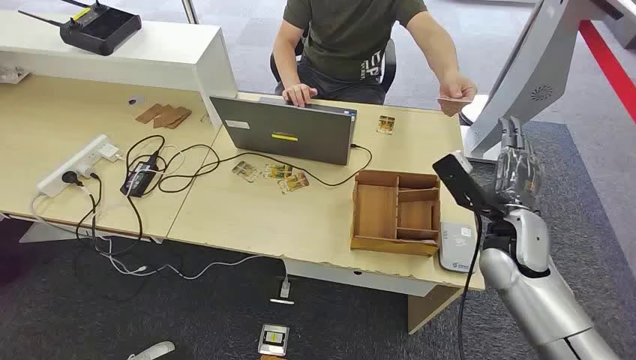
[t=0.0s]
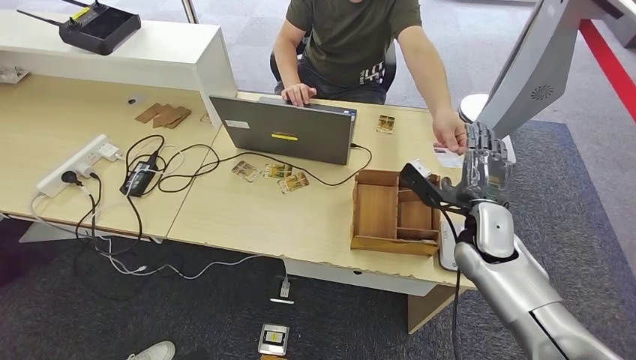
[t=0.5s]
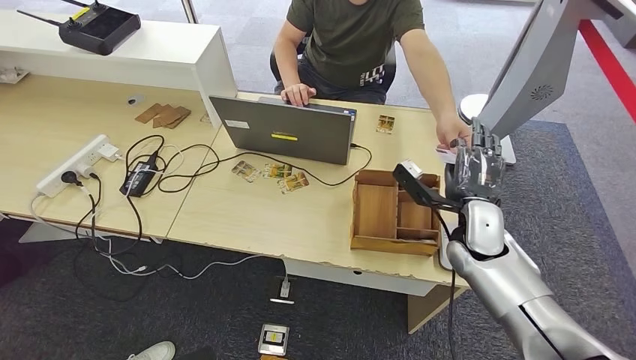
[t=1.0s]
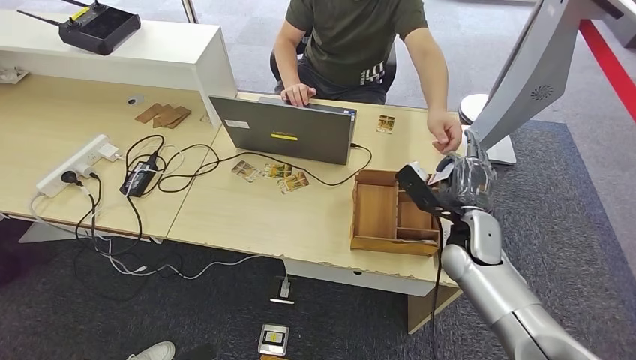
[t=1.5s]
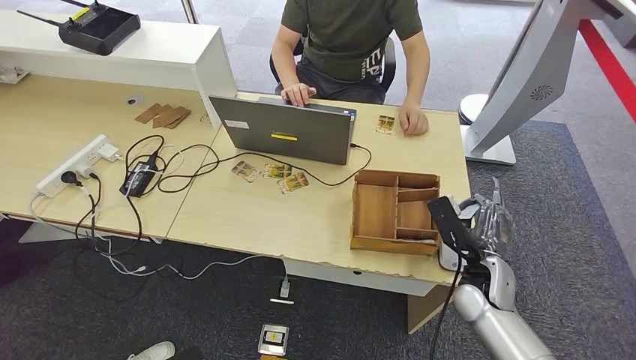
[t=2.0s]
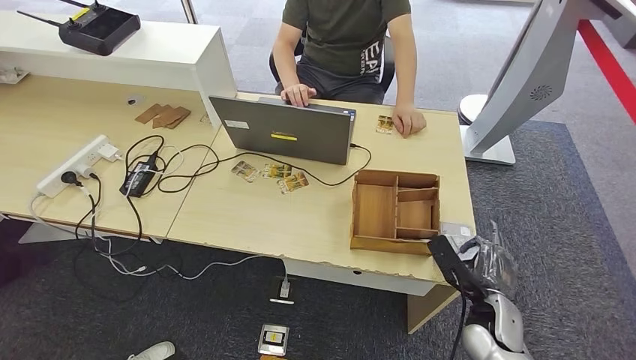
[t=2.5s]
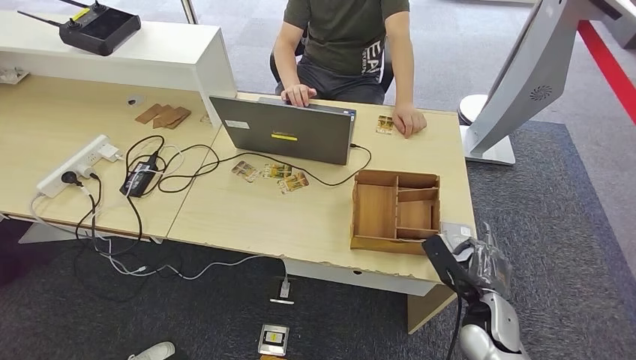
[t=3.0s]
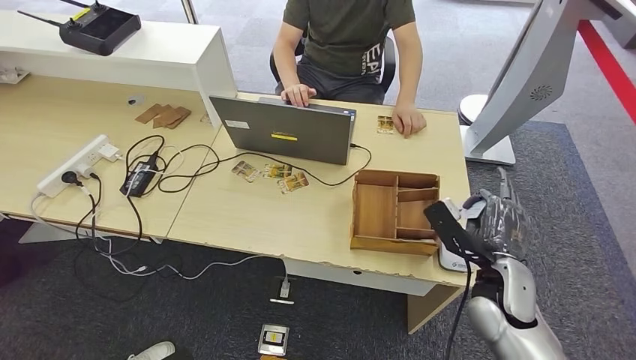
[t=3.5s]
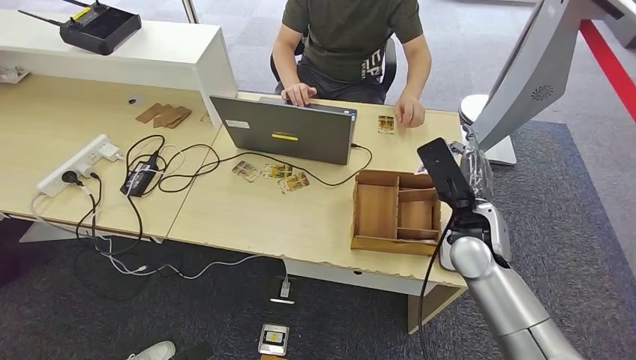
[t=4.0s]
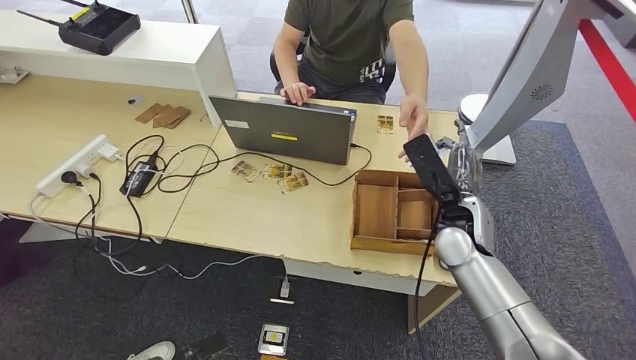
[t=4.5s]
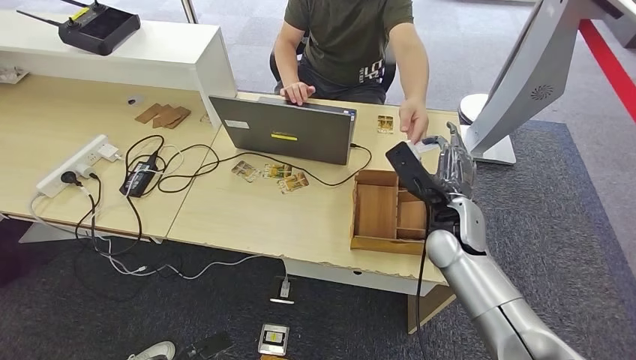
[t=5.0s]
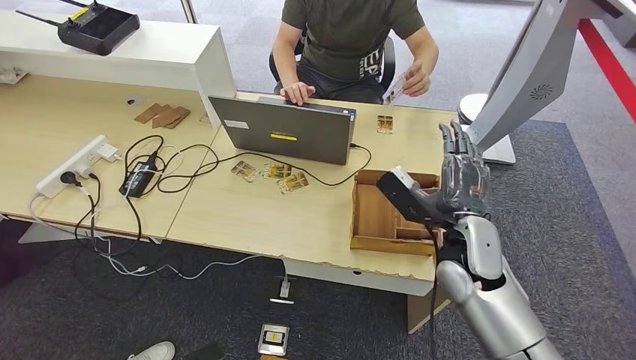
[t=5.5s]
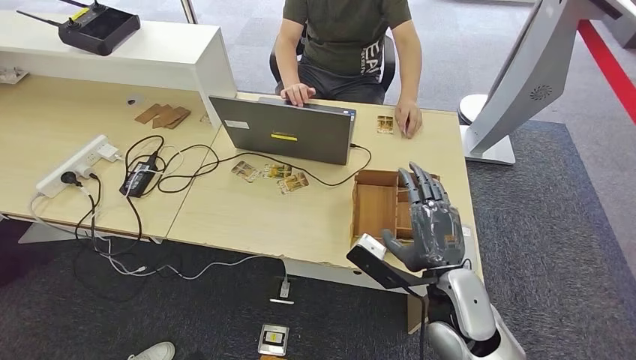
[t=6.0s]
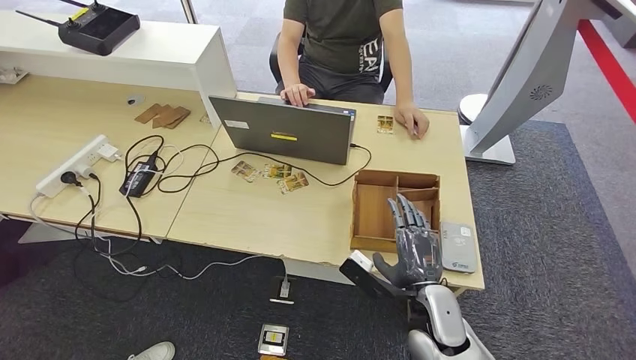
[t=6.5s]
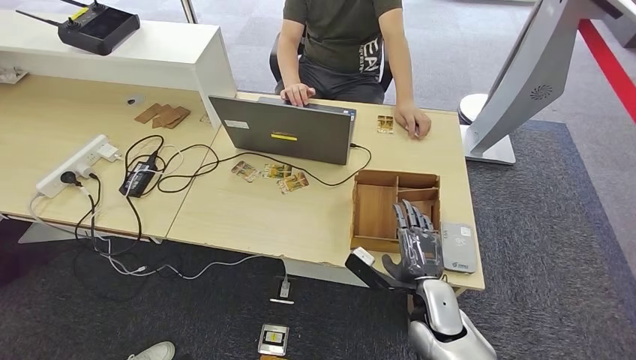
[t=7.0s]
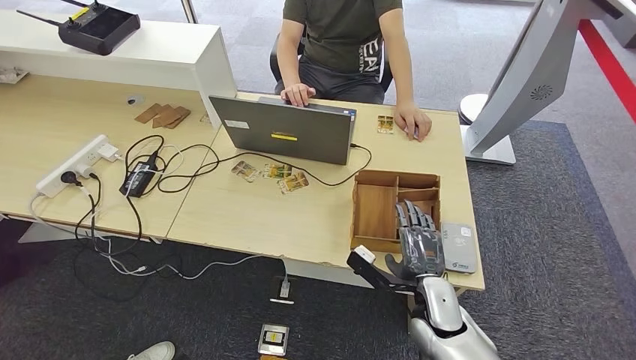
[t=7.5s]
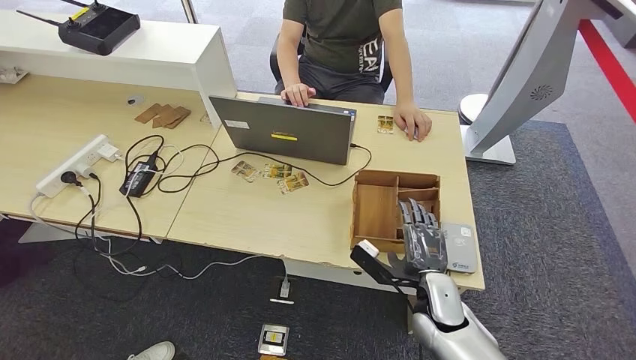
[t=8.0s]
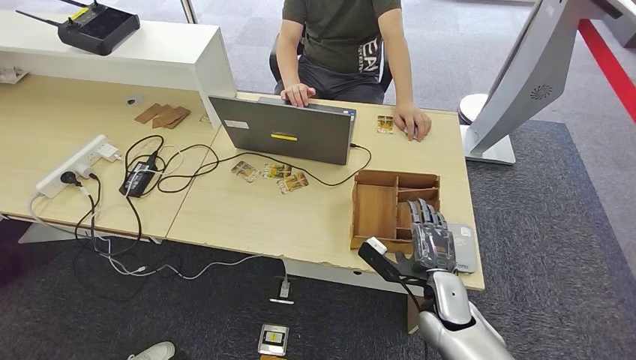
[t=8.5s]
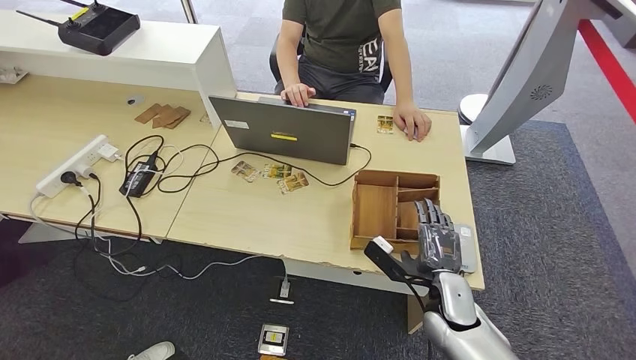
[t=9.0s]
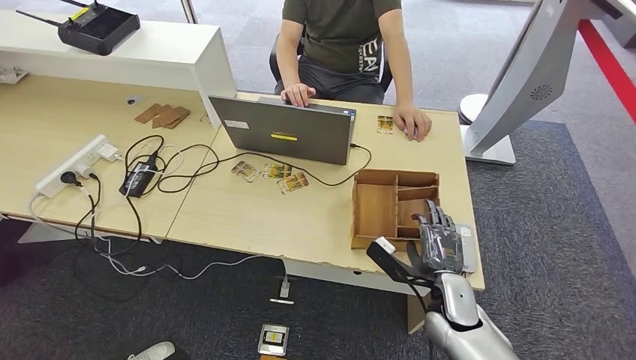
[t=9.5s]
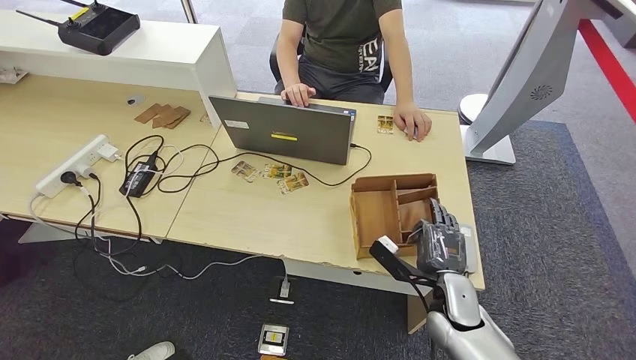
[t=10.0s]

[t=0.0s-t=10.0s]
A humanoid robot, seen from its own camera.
Step, t=0.0s to t=1.5s: Take the ID card from the person's hand.
Step, t=2.0s to t=3.5s: Place the ID card on the card reader.
Step, t=4.0s to t=5.5s: Hand the ID card to the person.
t=2.0s to t=4.0s: The right hand heads upward, covering about 10 cm.
t=4.0s to t=6.0s: The right hand travels backward by approximately 10 cm.
t=6.0s to t=8.0s: The right hand moves downward, approximately 10 cm.
t=8.0s to t=10.0s: The hands stay close to where they were, moving slightly.

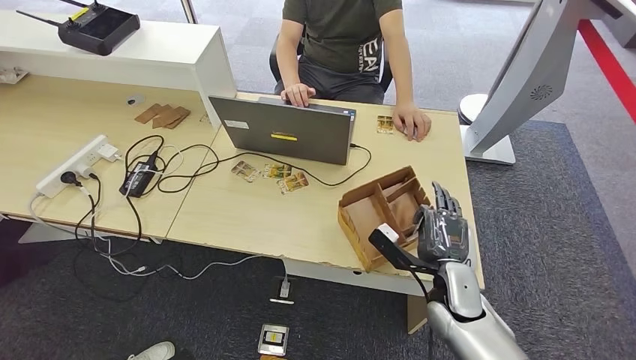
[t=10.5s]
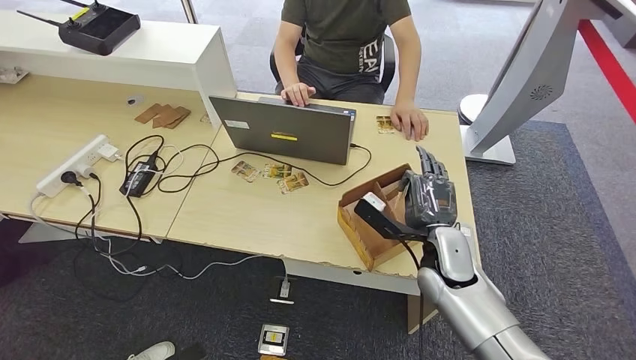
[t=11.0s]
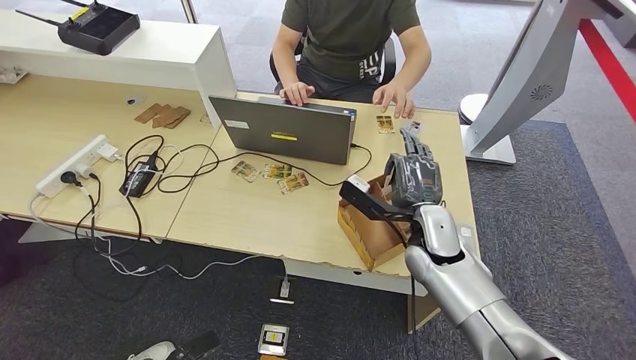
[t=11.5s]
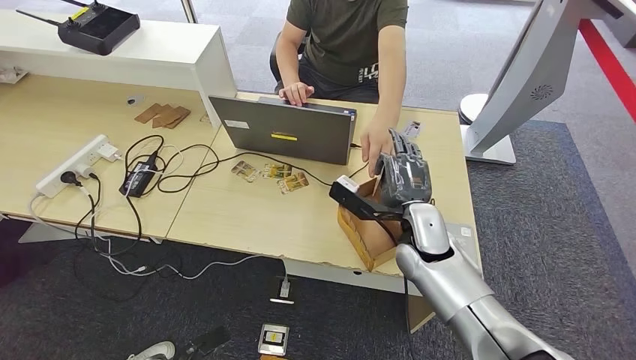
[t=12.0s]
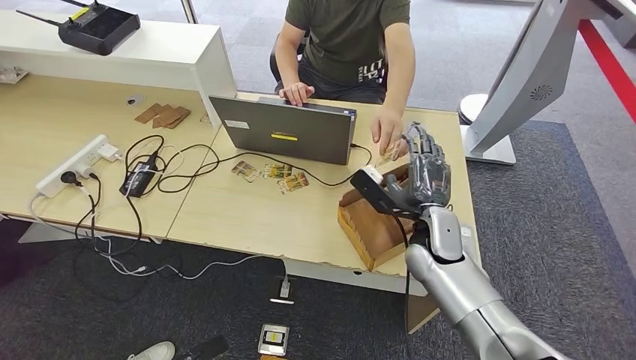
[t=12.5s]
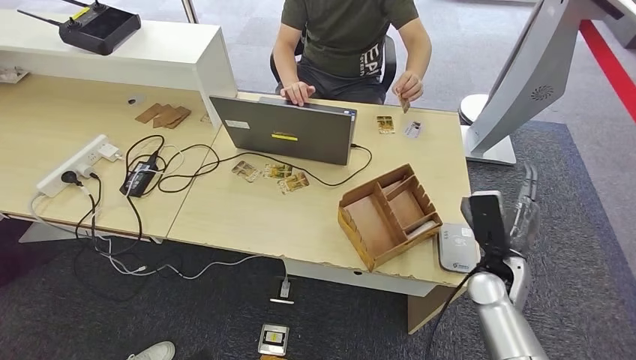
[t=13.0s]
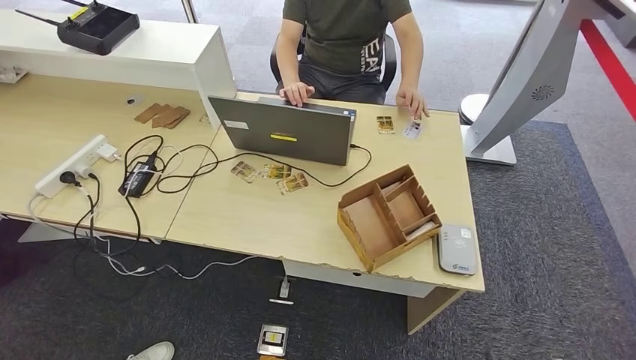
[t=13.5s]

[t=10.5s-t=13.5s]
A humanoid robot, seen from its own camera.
Step, t=12.0s to t=13.5s: Hand the room key to the person.
t=10.5s to t=12.0s: The right hand heads upward, forward and to the left, covering some 15 cm. Meanwhile the left hand goes roughly 10 cm forward and to the right.
t=12.0s to t=13.5s: The right hand is displaced downward, to the right and backward by roughly 40 cm, while the left hand goes roughly 15 cm backward and to the left.

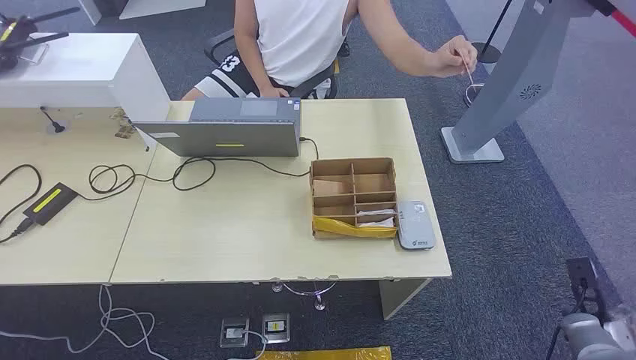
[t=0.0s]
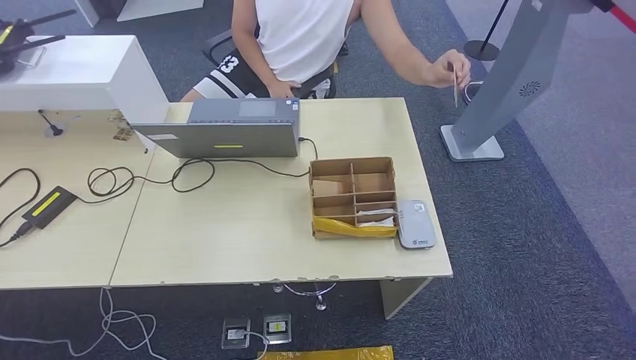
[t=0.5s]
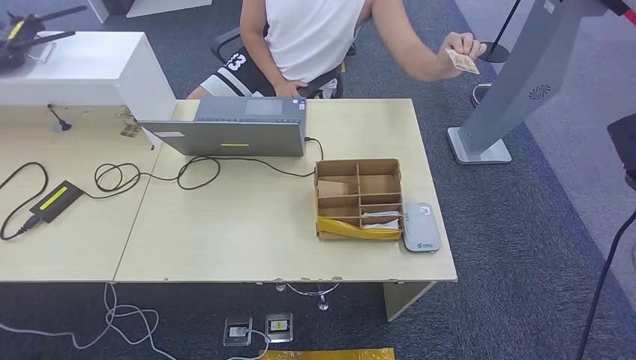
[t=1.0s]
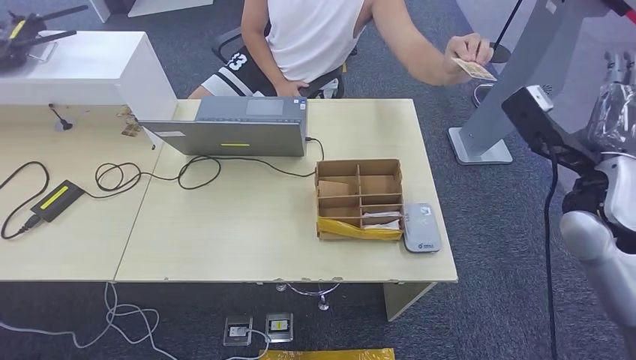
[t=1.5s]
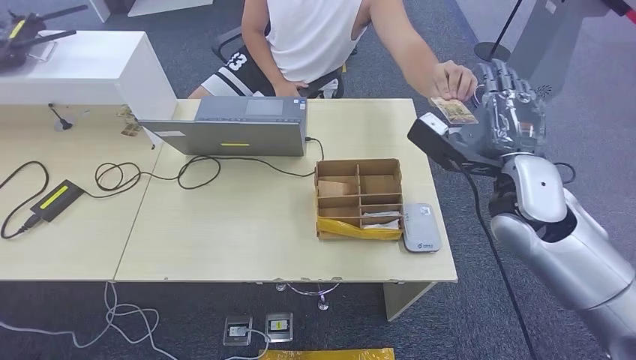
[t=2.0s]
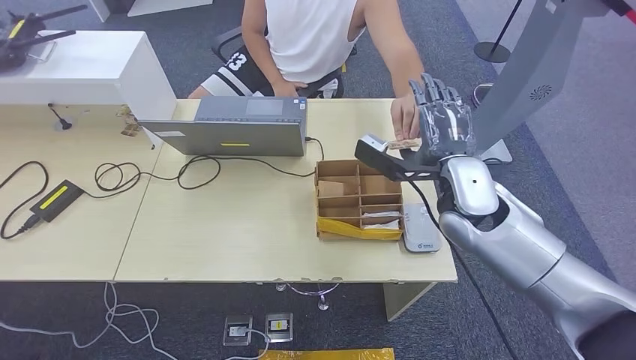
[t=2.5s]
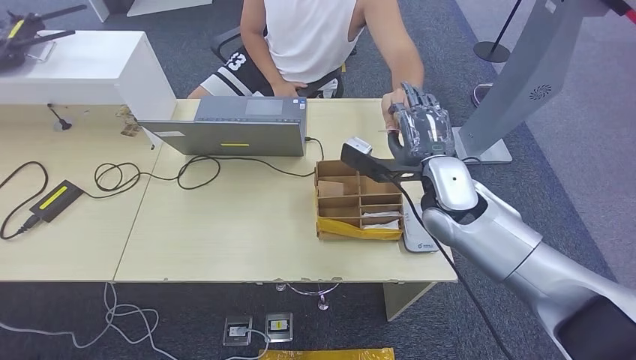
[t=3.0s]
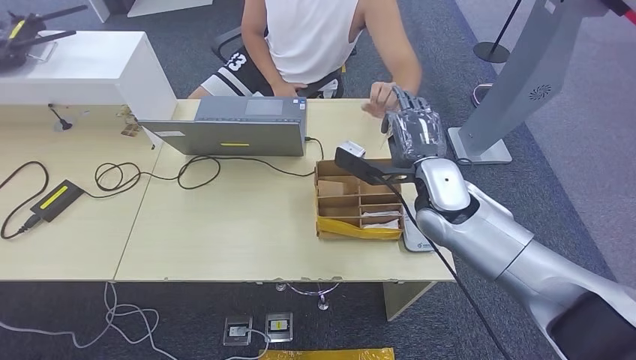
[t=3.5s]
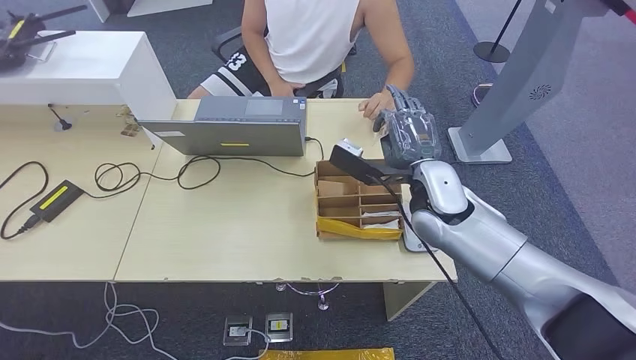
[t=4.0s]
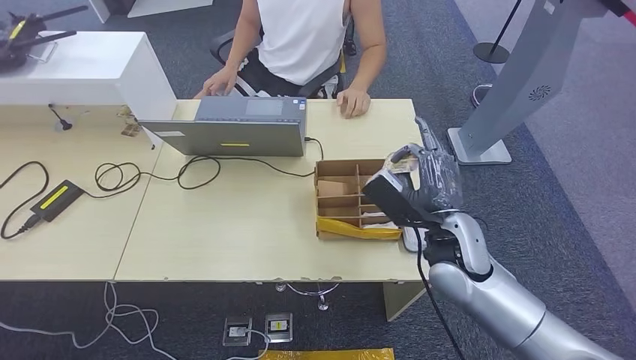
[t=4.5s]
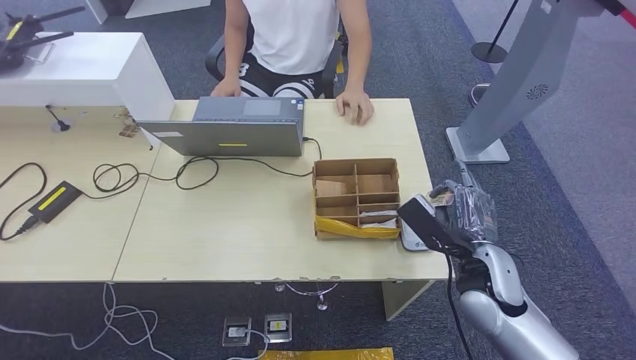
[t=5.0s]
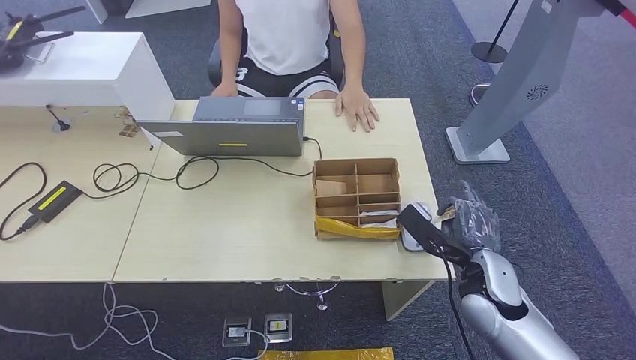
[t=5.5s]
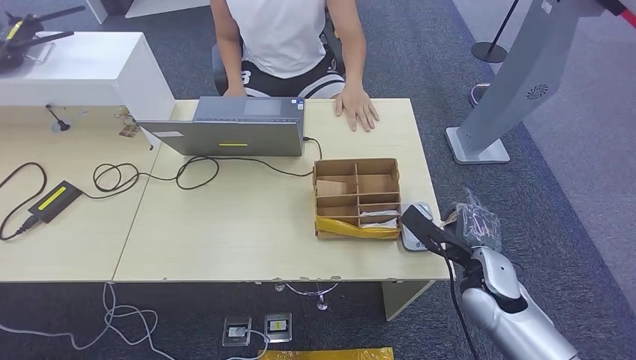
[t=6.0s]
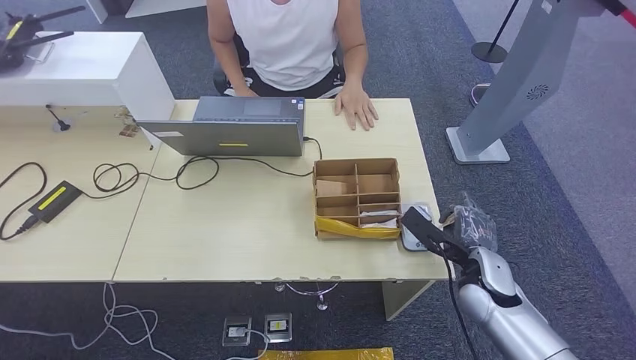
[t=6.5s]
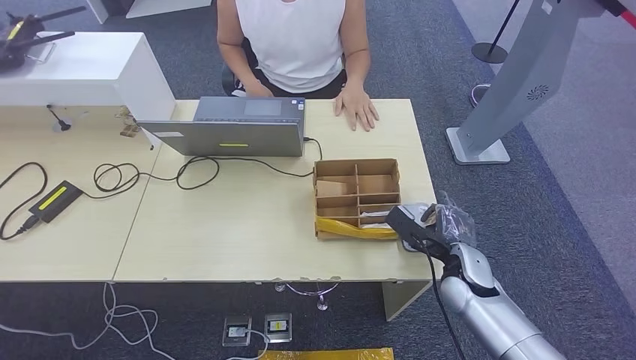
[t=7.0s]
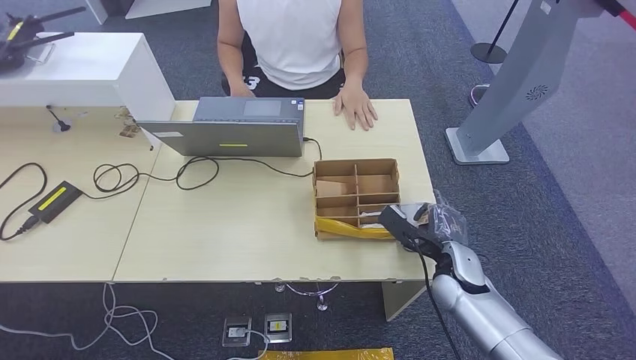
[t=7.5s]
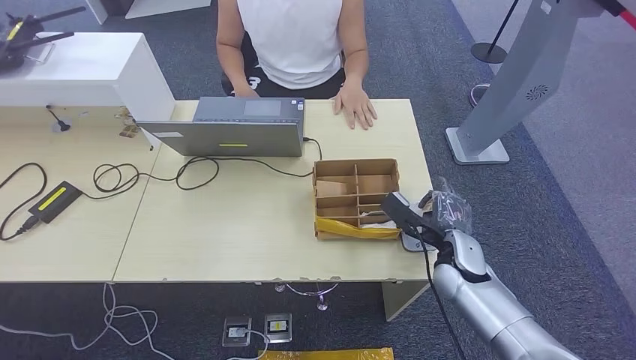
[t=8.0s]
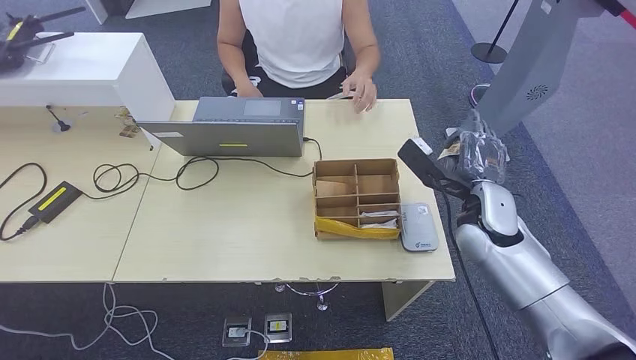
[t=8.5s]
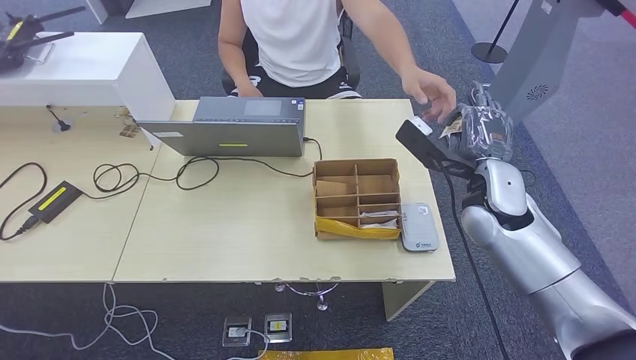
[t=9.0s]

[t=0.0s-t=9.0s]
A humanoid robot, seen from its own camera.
Step, t=0.0s to t=3.5s: Take the ID card from the person's hand.
Step, t=4.0s to t=6.5s: Place the ID card on the card reader.
t=4.5s to t=7.0s: The right hand shifts approximately 15 cm downward and to the right.
t=7.0s to t=9.0s: The right hand heads upward, covering roughly 15 cm.
